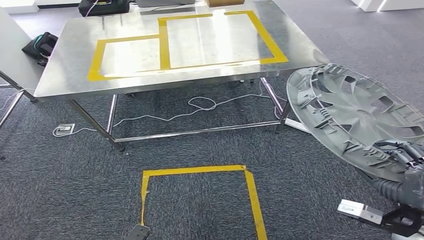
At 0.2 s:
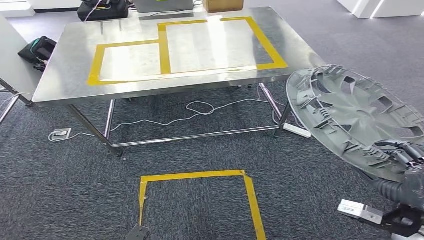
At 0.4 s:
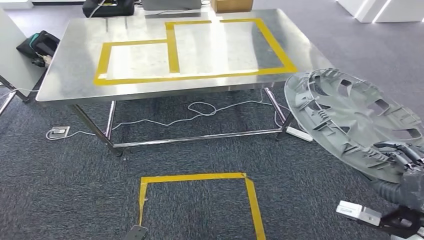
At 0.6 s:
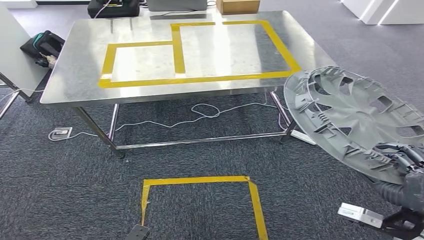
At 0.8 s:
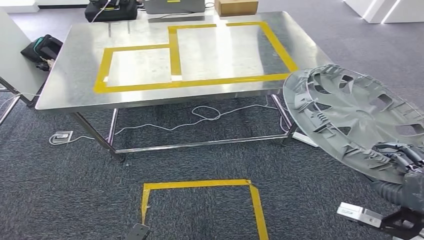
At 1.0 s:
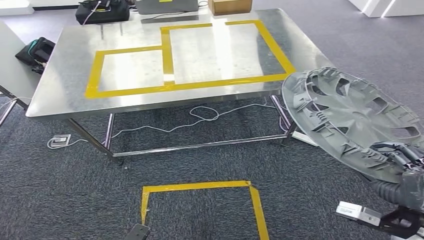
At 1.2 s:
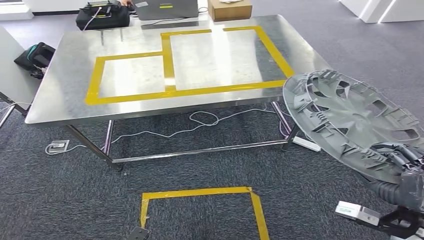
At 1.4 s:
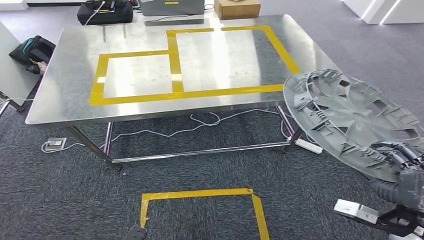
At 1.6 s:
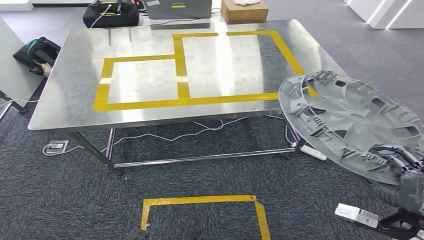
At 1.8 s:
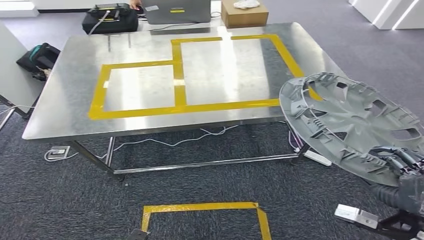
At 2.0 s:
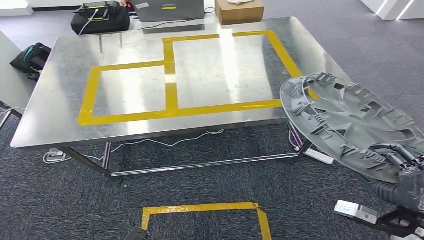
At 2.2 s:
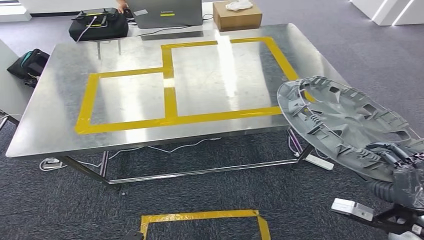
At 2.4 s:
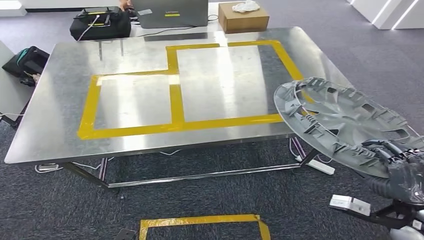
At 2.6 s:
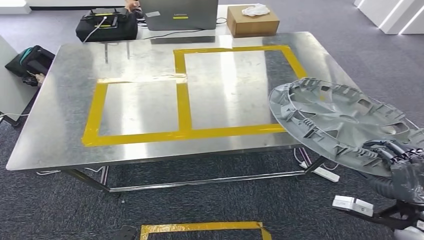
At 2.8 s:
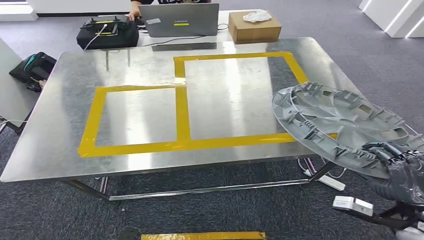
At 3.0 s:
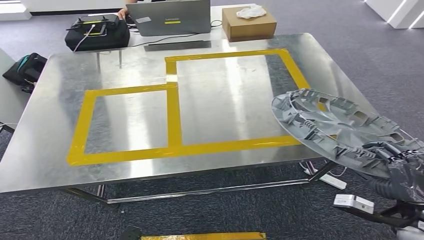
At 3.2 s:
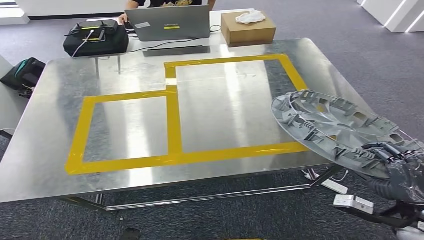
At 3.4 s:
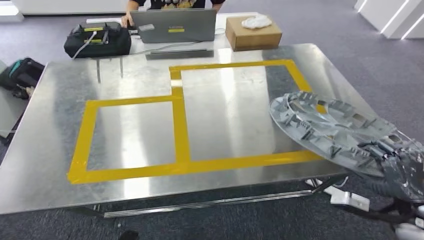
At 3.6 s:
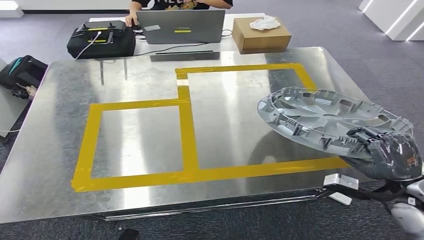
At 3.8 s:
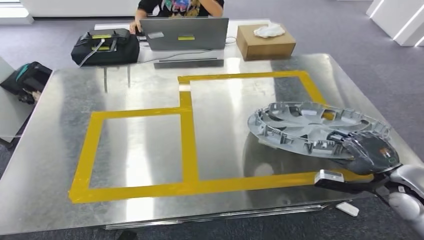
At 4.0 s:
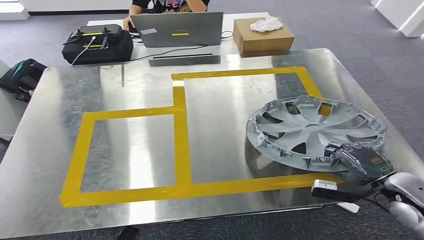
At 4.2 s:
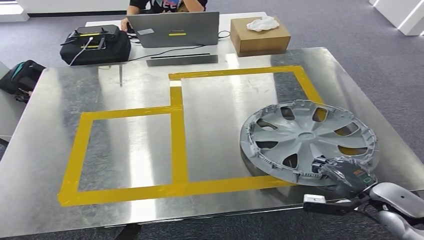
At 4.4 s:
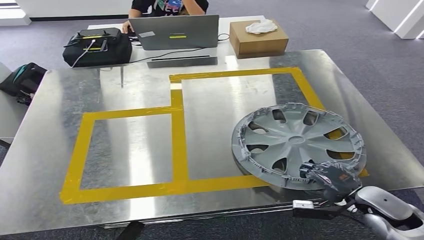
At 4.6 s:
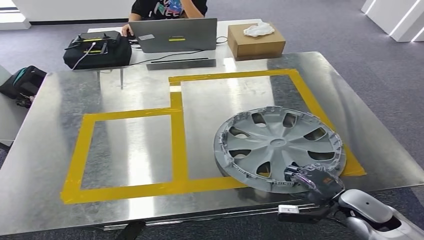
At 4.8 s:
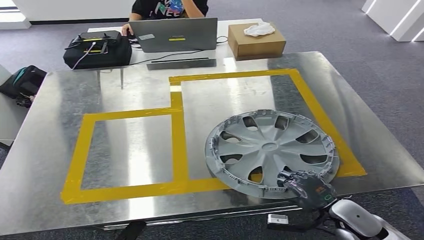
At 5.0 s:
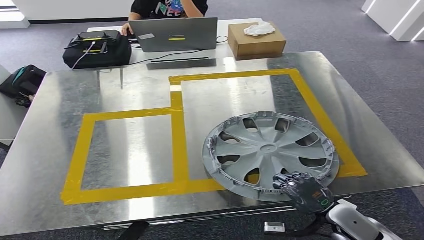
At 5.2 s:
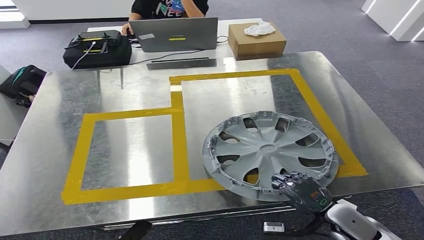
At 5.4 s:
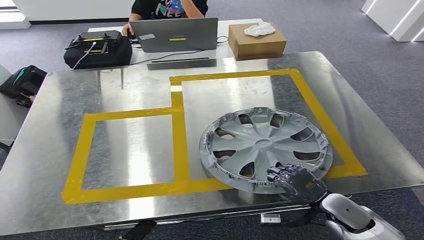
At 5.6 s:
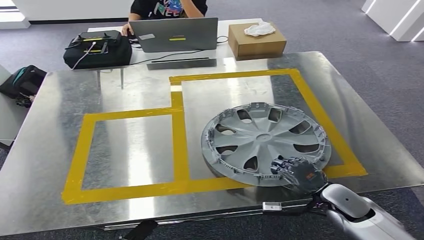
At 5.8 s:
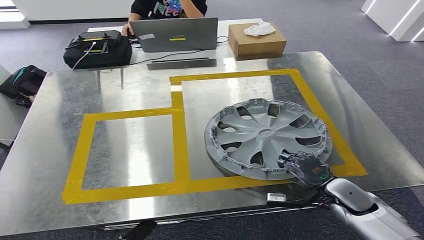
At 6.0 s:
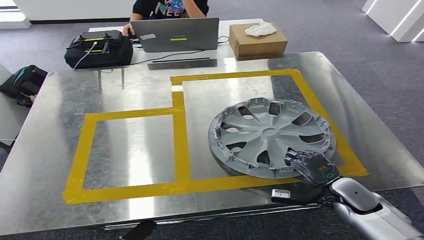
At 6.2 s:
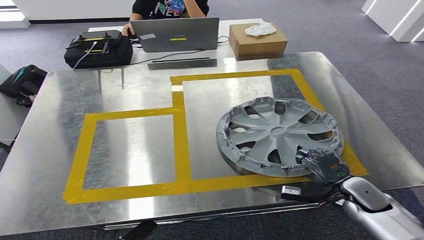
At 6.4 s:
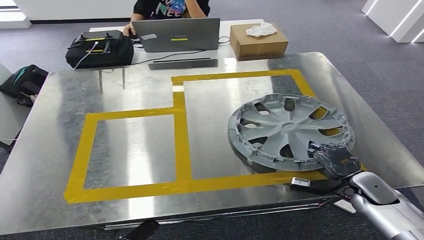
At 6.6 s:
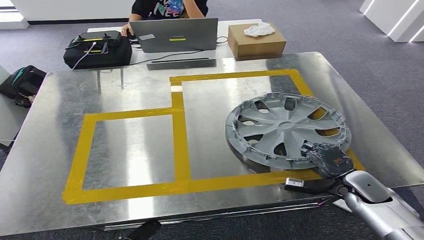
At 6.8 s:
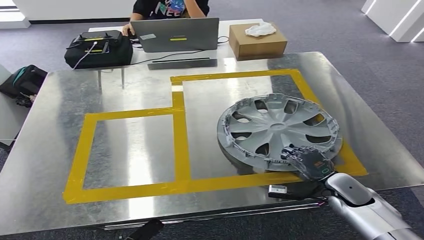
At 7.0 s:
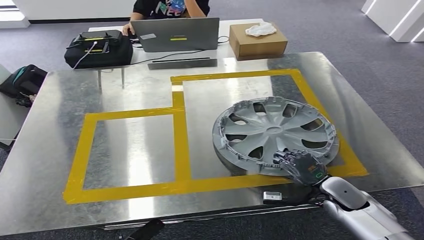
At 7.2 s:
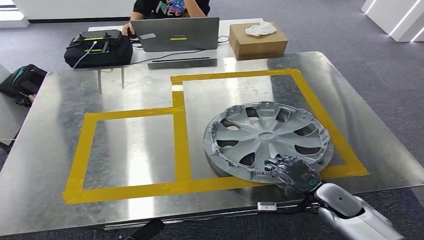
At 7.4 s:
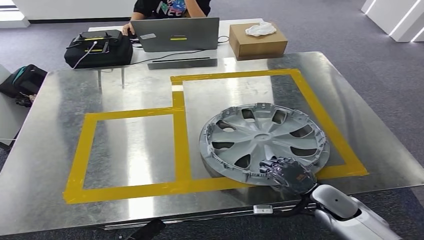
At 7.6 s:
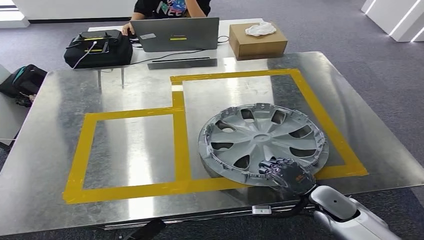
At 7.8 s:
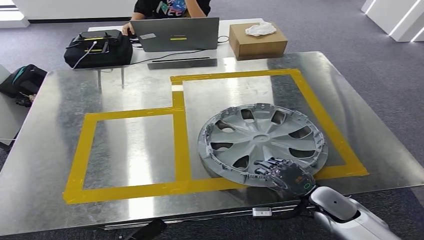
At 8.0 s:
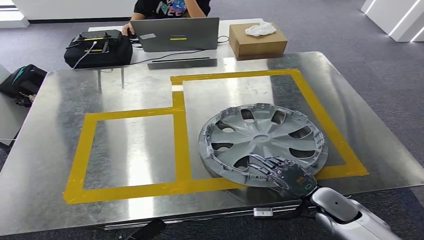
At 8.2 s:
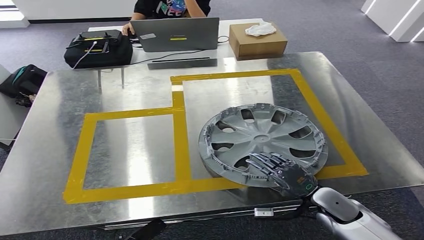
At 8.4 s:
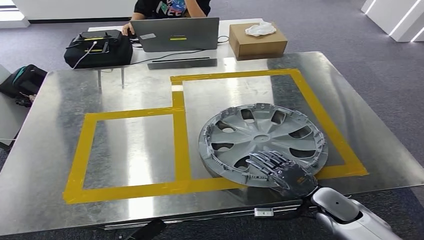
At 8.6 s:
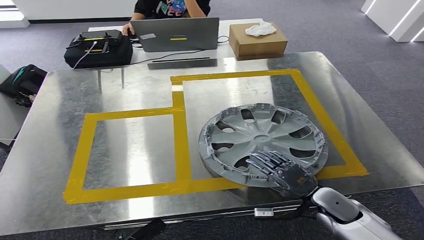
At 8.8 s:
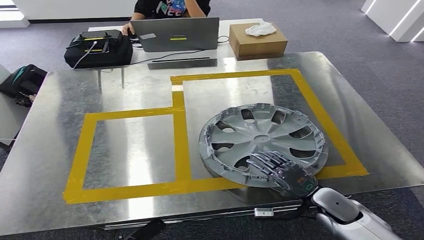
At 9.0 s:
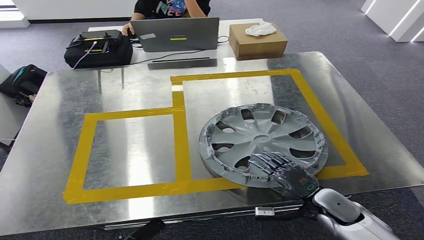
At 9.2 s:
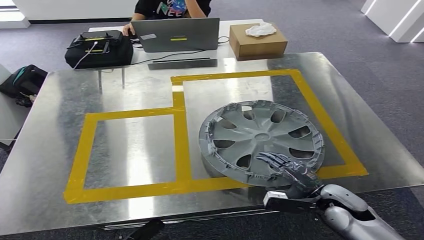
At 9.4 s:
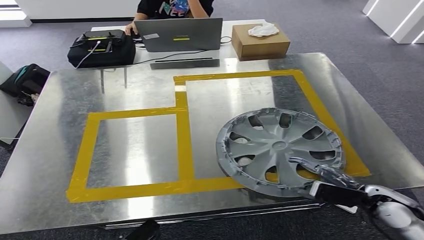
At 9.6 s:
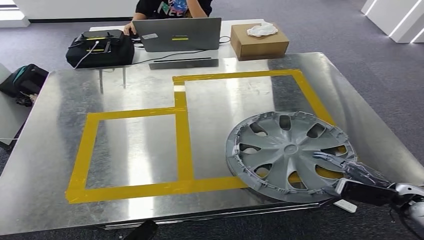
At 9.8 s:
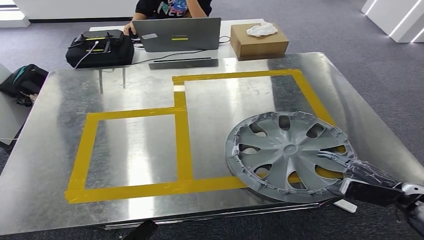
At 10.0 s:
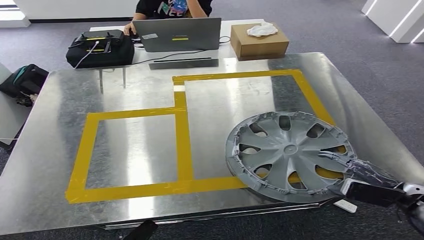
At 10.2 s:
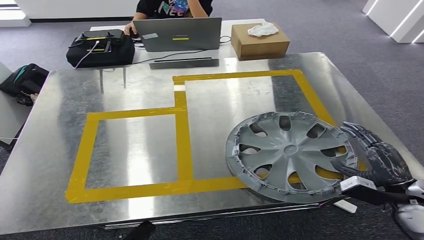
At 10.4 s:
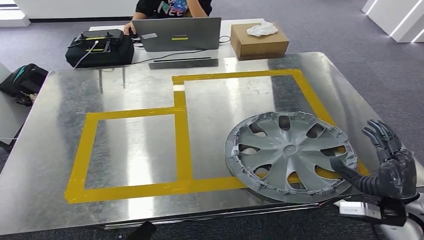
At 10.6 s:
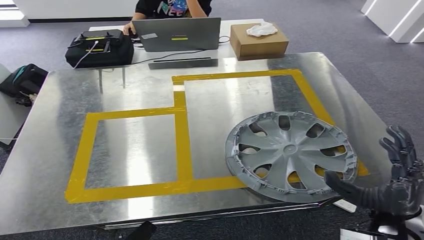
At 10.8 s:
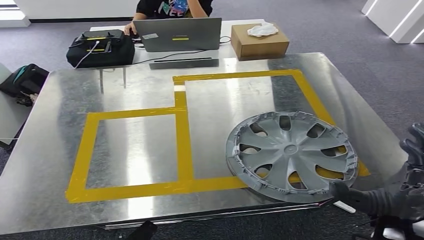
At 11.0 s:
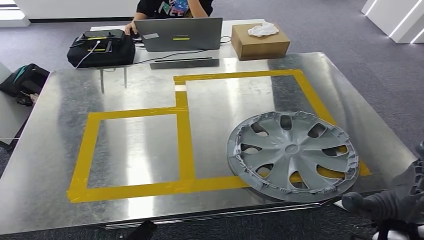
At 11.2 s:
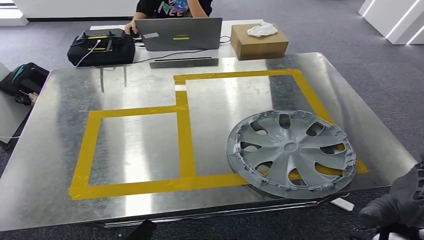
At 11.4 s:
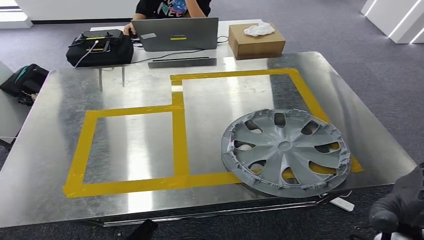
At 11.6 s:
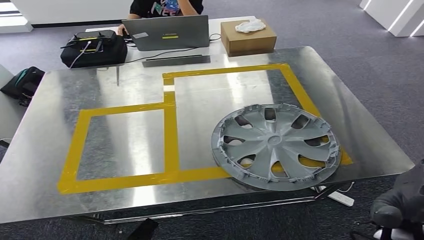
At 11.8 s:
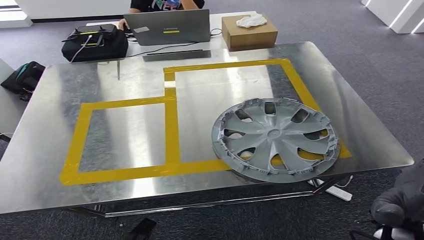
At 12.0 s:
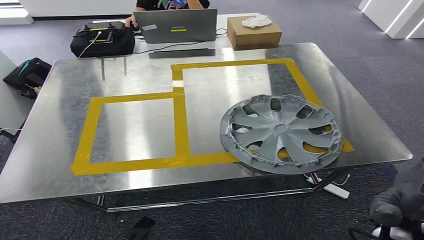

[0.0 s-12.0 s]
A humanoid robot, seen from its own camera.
Step, 0.0 to 10.6 s: Insert the small parts into the corresponding slots on the workbench.
6.0 to 7.6 s: The right hand heads to the left, covering approximately 5 cm.
7.6 to 9.0 s: The hands stay close to where they were, moving slightly.
9.0 to 10.4 s: The right hand shifts approximately 15 cm upward and to the right.

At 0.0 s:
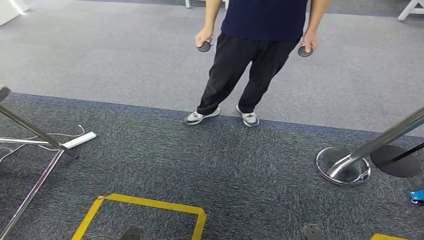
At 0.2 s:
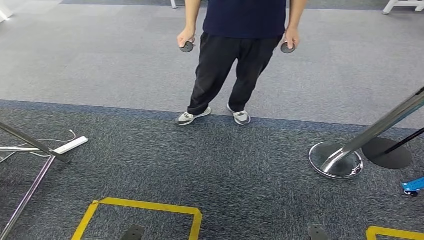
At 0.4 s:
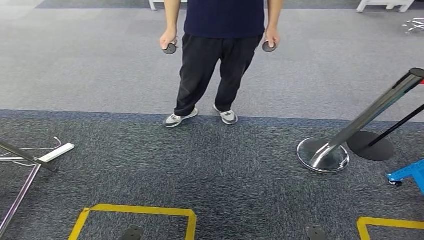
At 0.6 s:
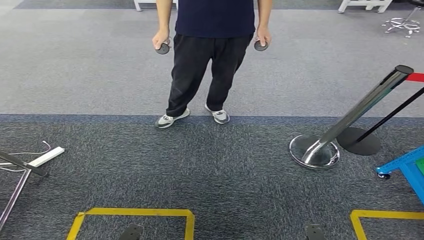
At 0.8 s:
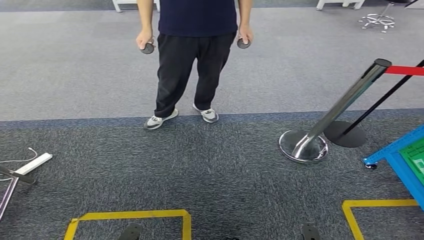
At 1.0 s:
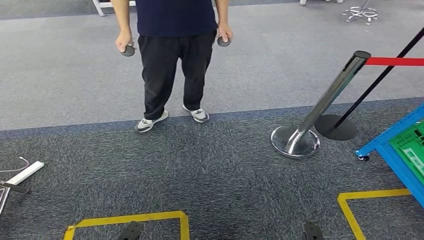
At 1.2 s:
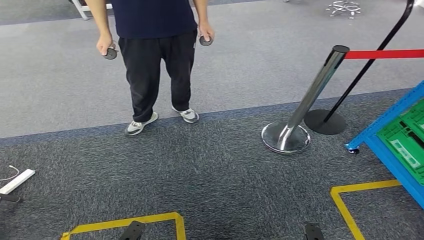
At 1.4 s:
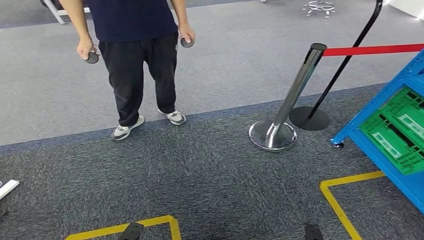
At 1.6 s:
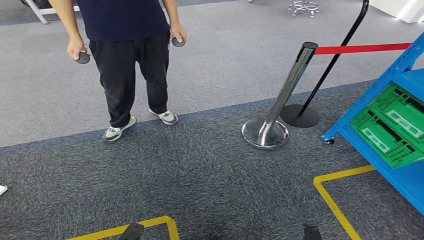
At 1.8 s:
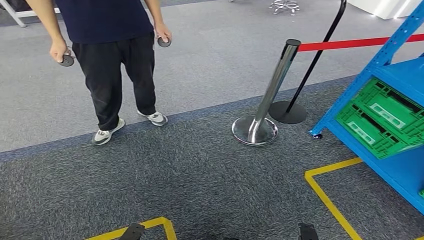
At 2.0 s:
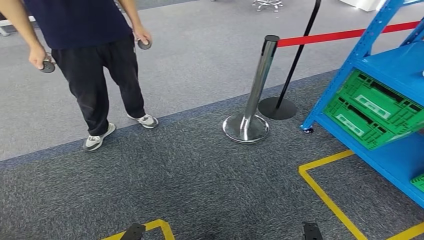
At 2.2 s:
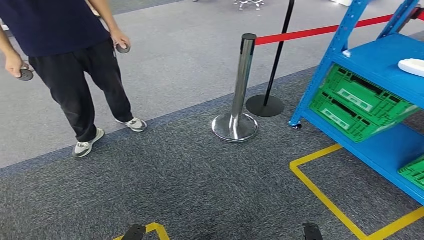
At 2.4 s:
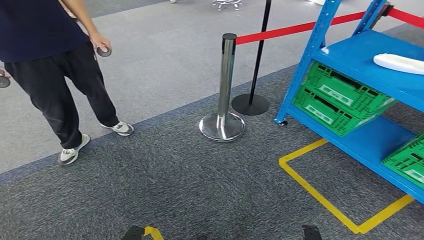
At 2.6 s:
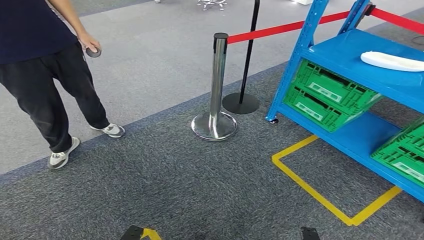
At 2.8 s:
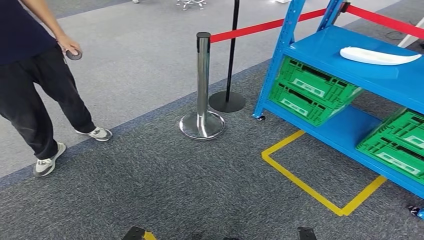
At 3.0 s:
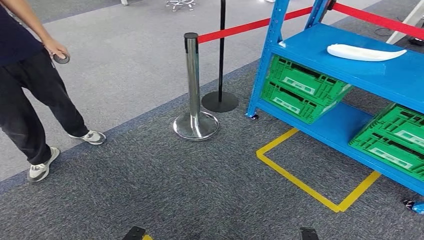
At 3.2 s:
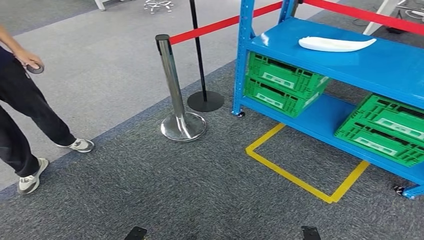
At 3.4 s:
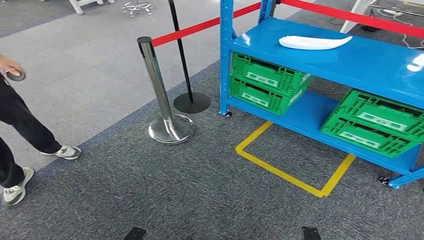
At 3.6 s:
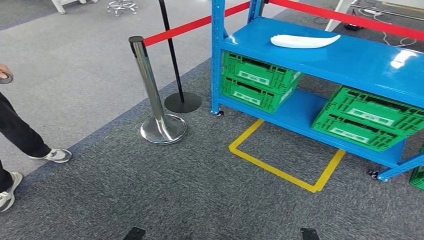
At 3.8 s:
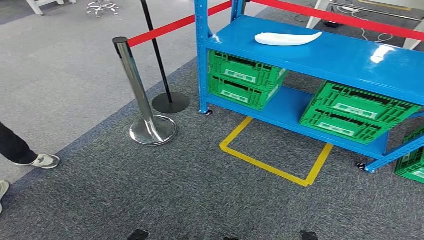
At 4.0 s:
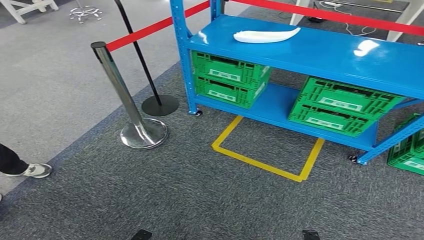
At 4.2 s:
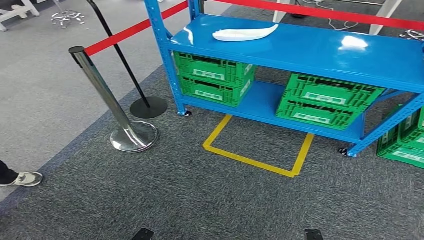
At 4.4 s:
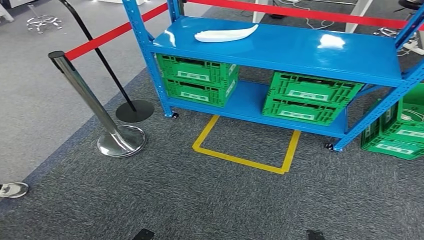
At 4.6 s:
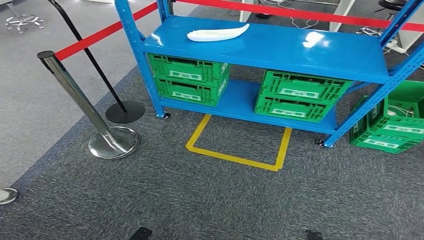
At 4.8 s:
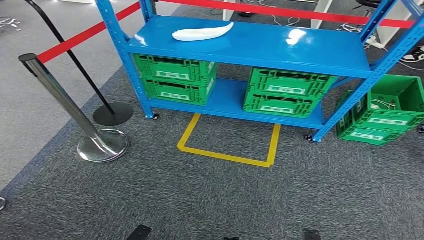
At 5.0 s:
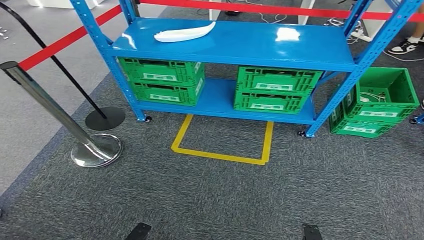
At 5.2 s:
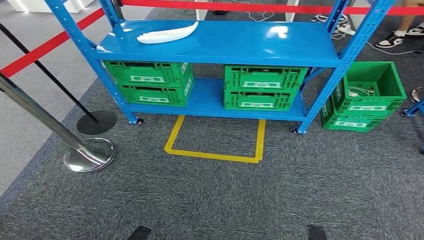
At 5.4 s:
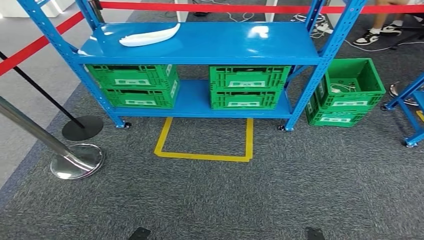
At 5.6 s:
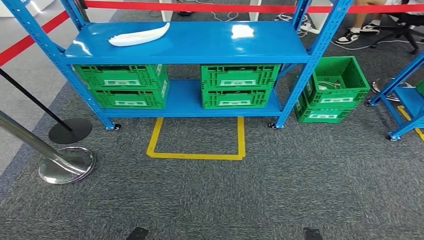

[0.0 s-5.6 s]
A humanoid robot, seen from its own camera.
Step, 0.0 to 5.6 s: Return to the initial position at the workbench.
